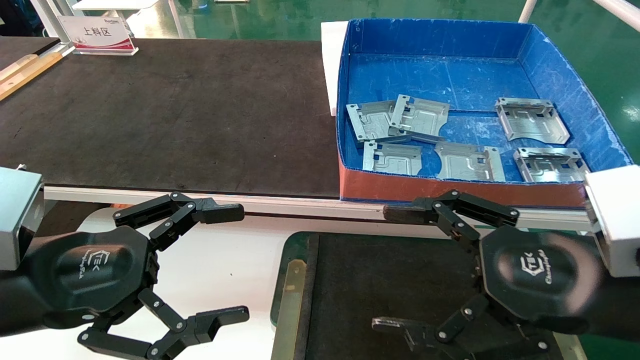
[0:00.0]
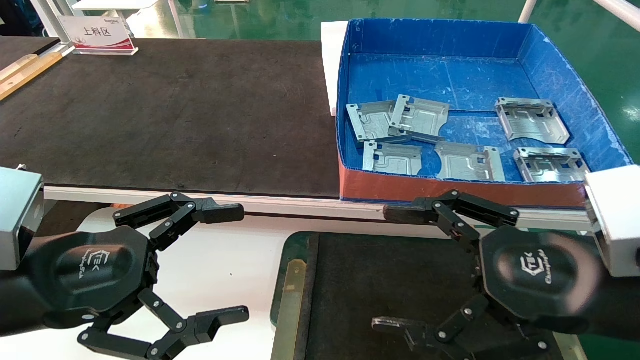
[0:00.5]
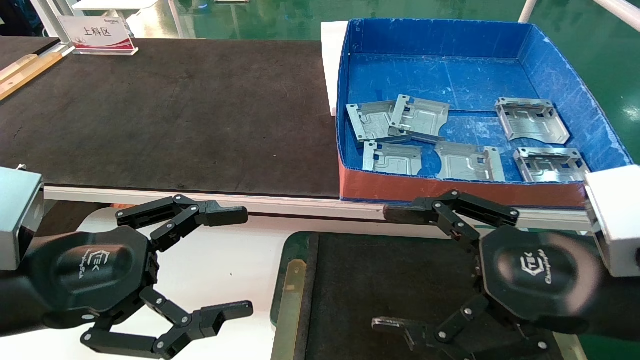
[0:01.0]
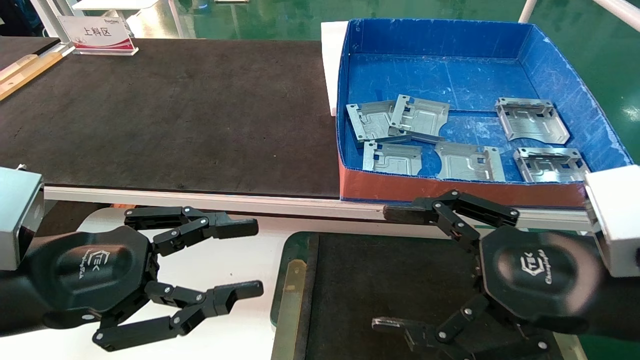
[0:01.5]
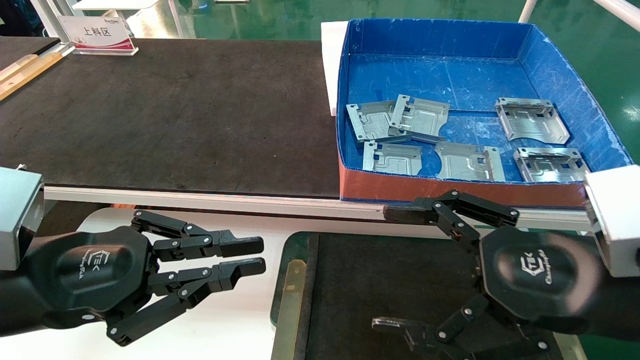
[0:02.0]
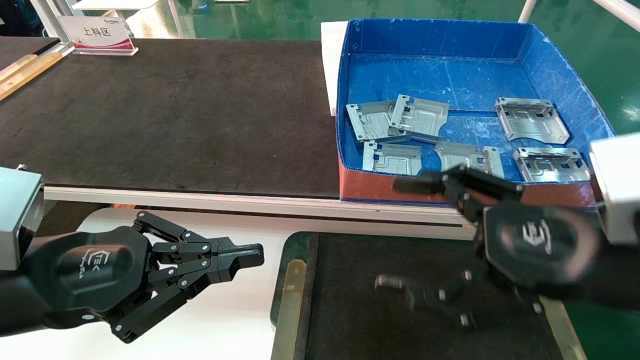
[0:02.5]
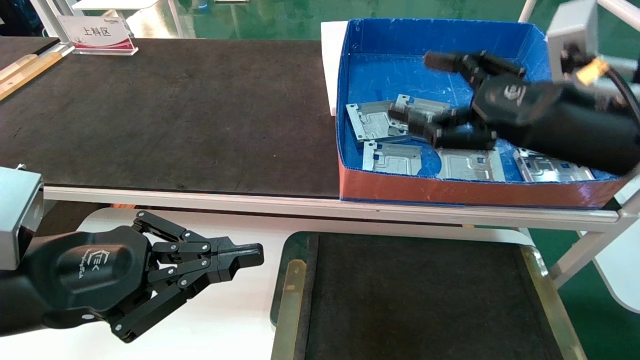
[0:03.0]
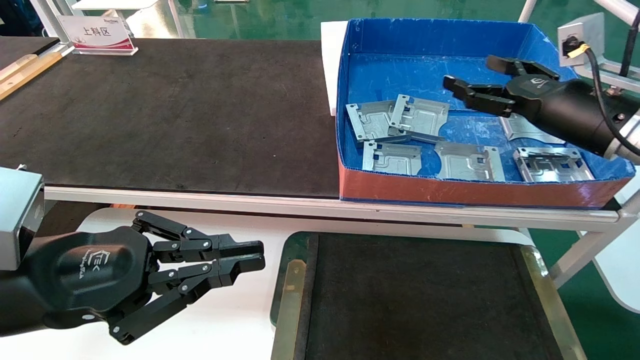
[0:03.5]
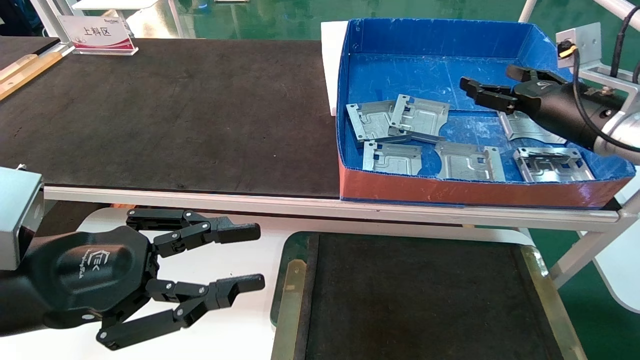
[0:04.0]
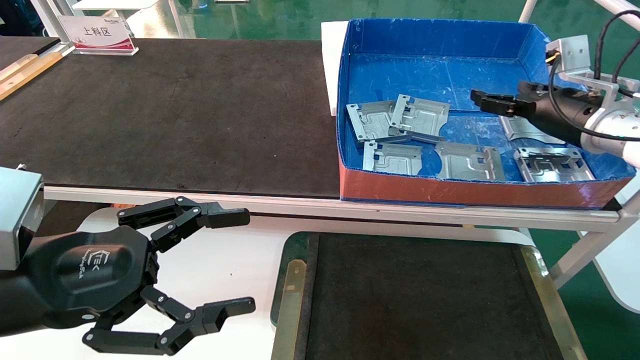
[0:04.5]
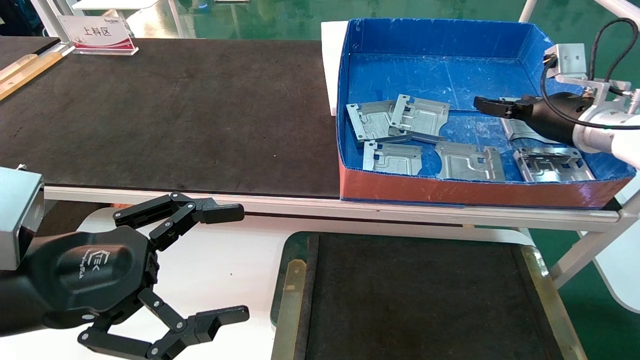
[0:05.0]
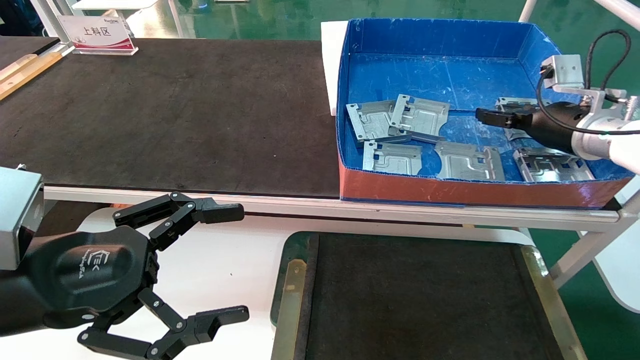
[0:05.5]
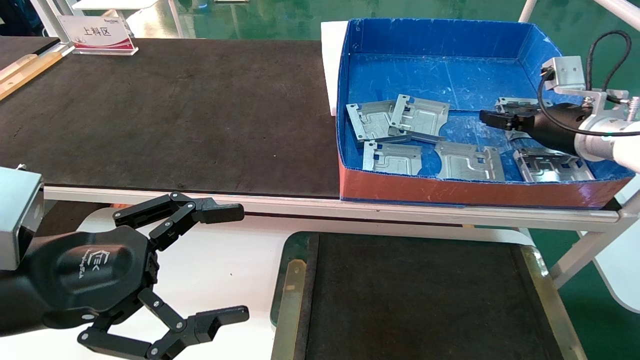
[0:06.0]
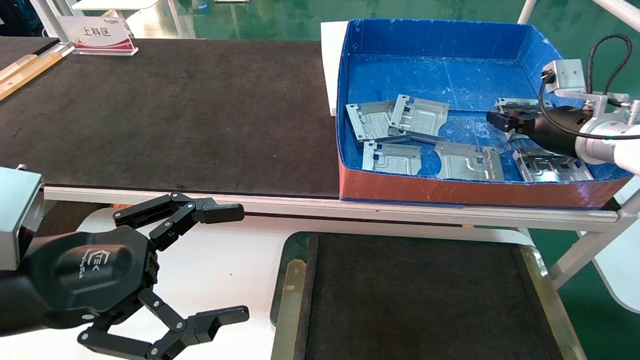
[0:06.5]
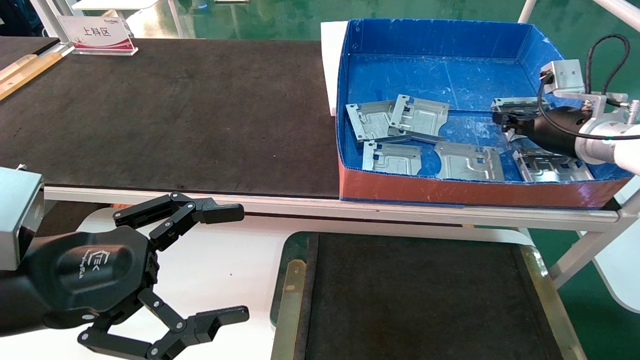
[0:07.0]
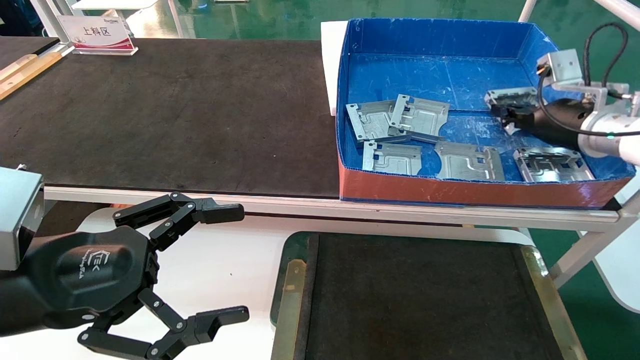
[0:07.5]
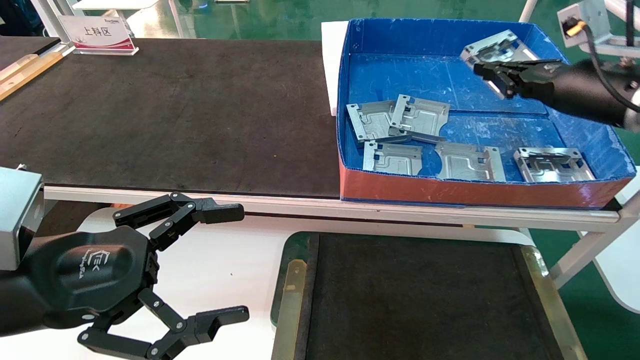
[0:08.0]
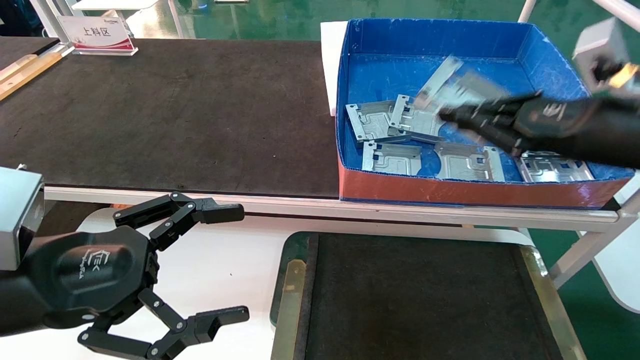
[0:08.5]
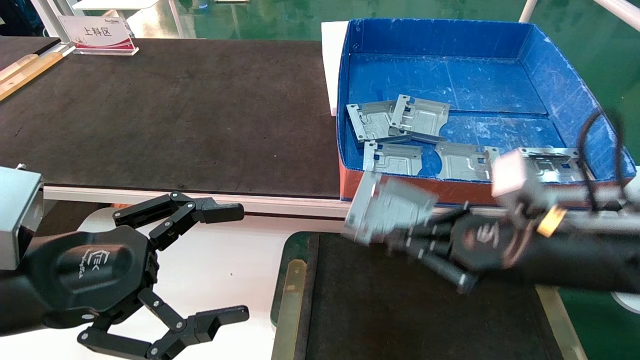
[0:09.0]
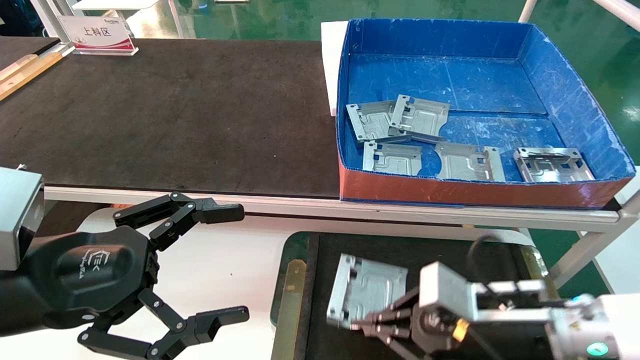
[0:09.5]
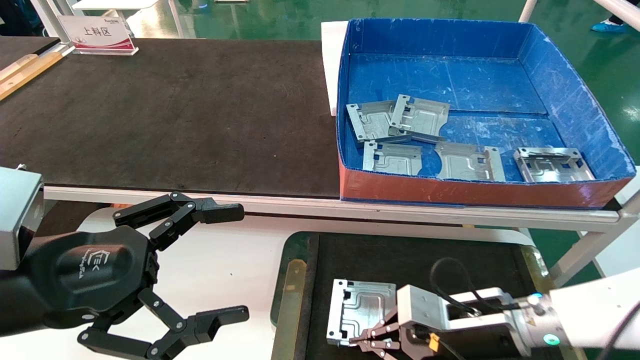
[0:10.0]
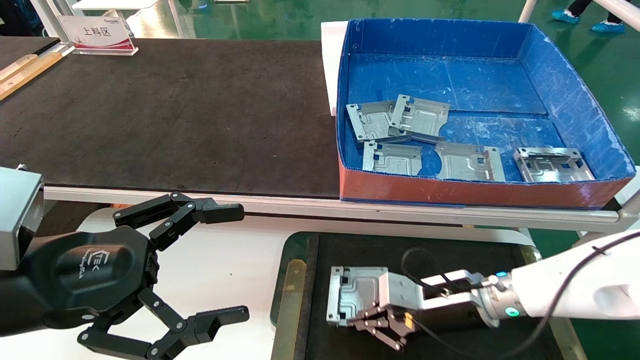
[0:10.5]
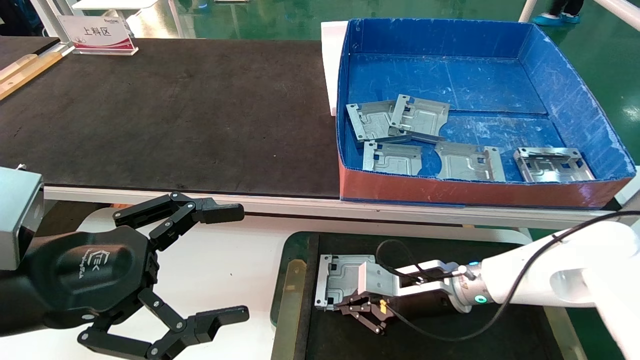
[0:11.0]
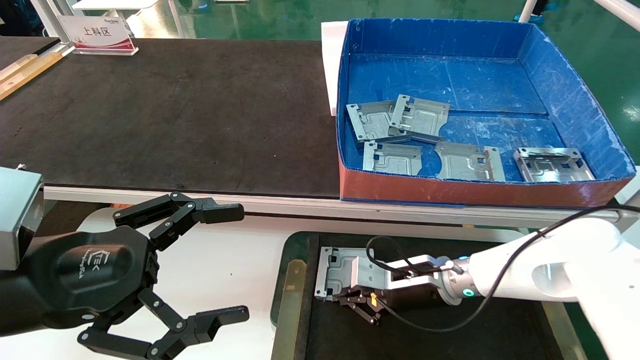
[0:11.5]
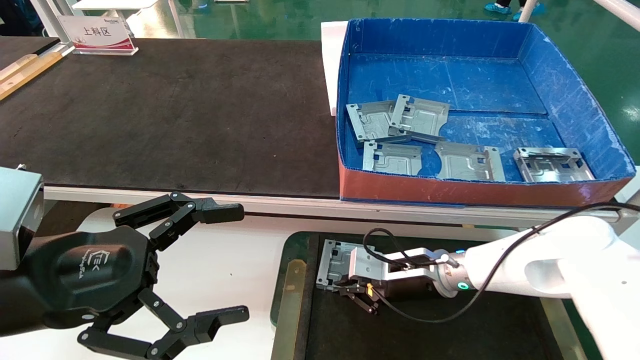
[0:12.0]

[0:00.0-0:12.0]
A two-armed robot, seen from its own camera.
Task of the whole recording: pick up parts and place them into a black container.
Step, 0:03.0 to 0:07.0: Pick up the hard drive bracket from the feeding area.
0:00.0 to 0:02.0: The left gripper closes its fingers.
0:02.0 to 0:04.0: The right gripper is displaced forward and to the right by roughly 25 cm.
0:04.0 to 0:06.0: The right gripper ends up approximately 5 cm from where it was; the left gripper opens its fingers.
0:06.0 to 0:08.0: The right gripper heads backward and upward, covering approximately 10 cm, and closes up.
0:08.0 to 0:10.0: The right gripper goes about 30 cm downward and to the left.
0:10.0 to 0:12.0: The right gripper shifts roughly 10 cm forward and to the left.

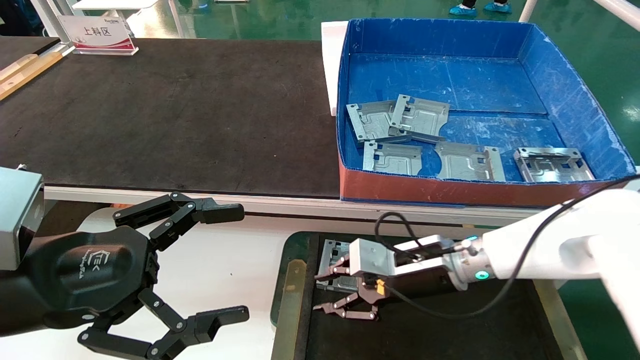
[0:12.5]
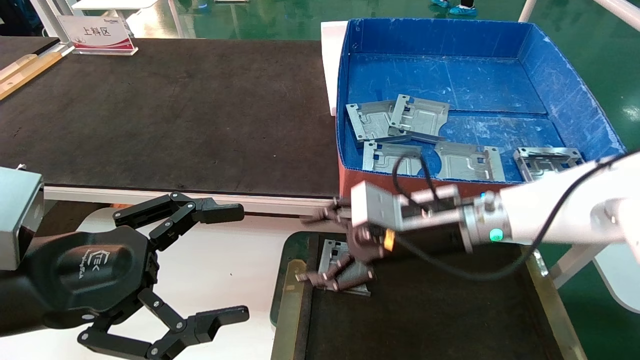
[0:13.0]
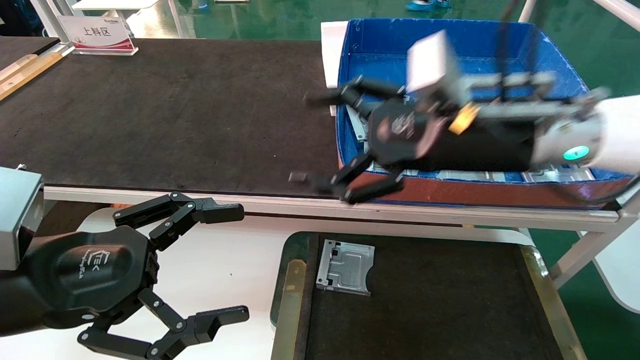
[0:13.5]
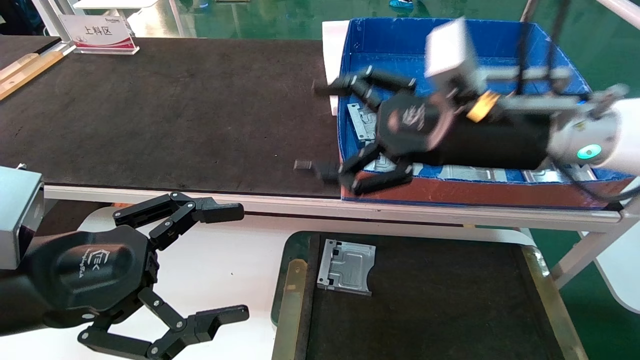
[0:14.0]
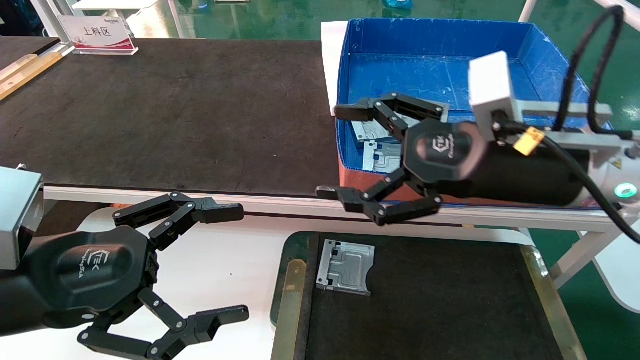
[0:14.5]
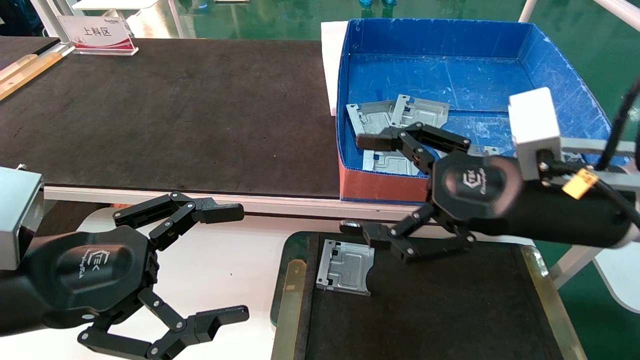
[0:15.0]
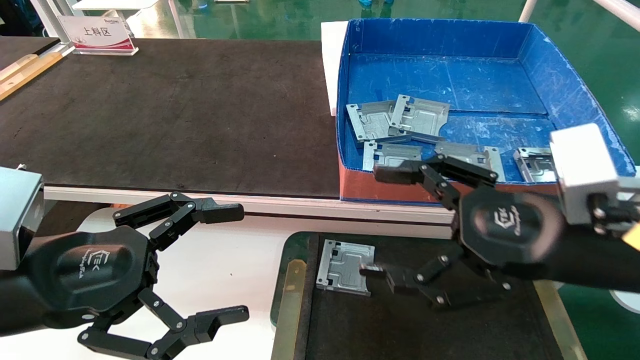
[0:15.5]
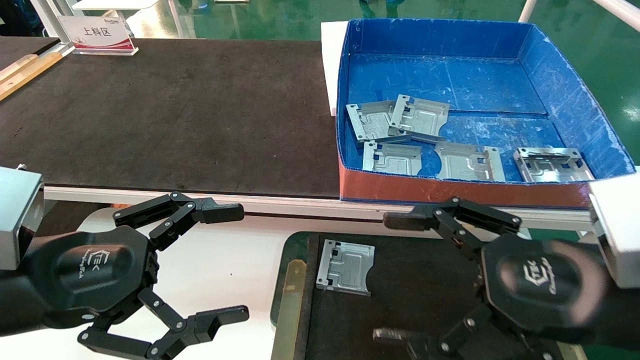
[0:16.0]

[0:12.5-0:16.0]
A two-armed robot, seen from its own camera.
Task of the whole recording: pick up parts and place them into a black container.
0:12.5 to 0:14.5: The right gripper travels upward and backward by about 20 cm, and opens up.
0:14.5 to 0:16.0: The right gripper moves backward and downward, approximately 10 cm.
